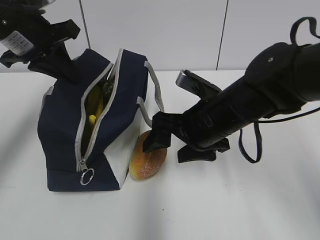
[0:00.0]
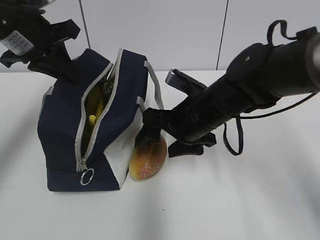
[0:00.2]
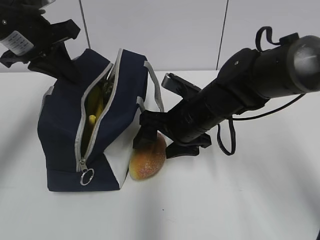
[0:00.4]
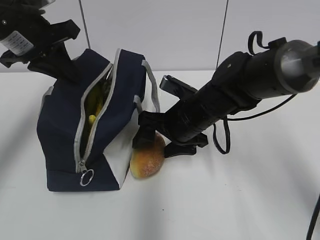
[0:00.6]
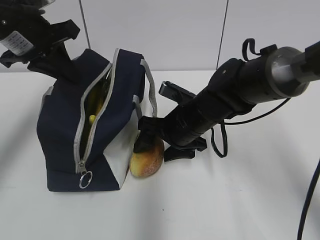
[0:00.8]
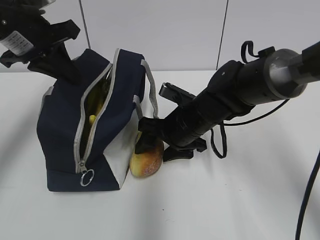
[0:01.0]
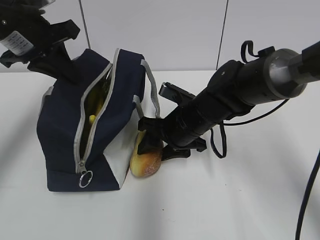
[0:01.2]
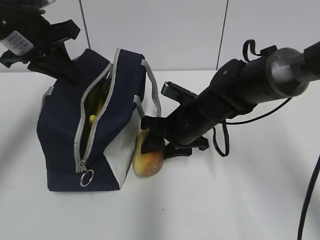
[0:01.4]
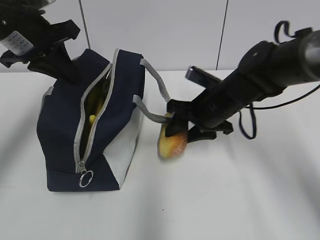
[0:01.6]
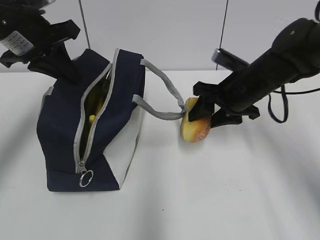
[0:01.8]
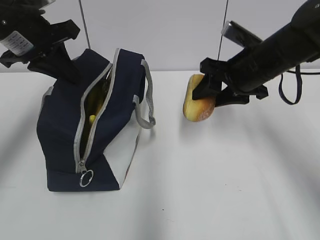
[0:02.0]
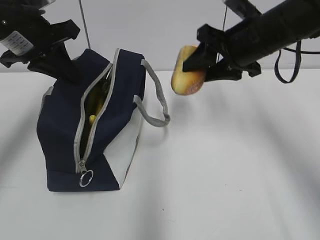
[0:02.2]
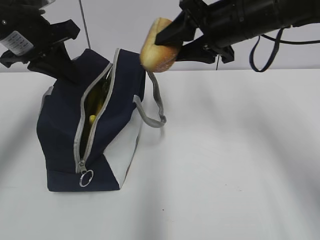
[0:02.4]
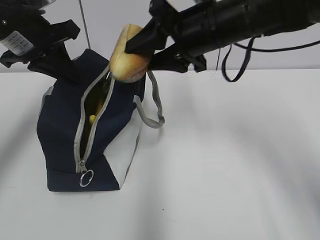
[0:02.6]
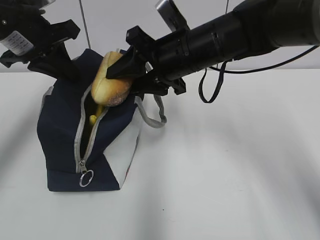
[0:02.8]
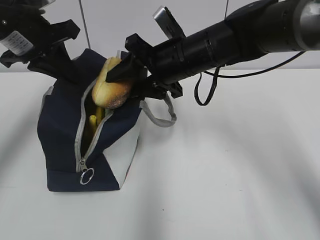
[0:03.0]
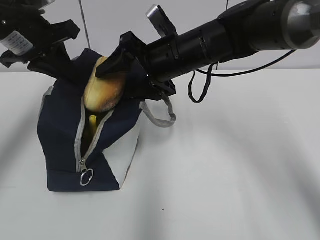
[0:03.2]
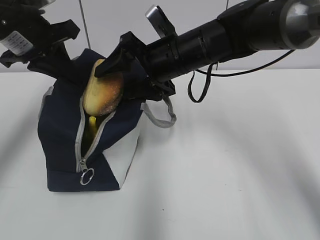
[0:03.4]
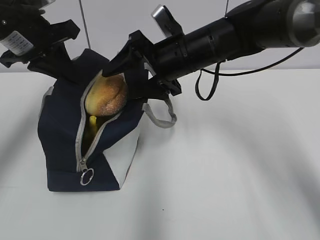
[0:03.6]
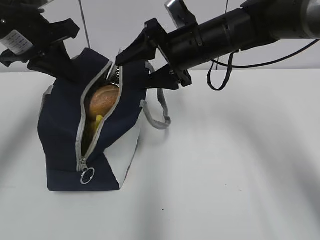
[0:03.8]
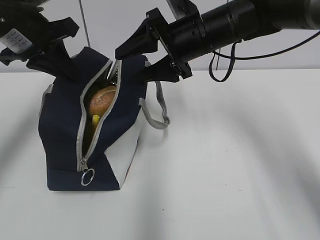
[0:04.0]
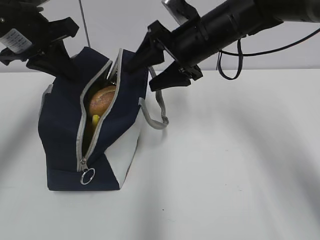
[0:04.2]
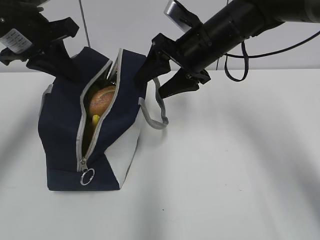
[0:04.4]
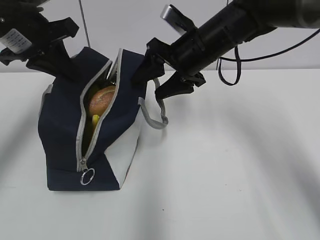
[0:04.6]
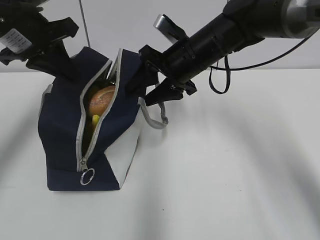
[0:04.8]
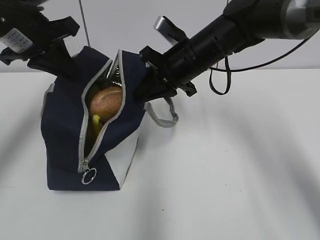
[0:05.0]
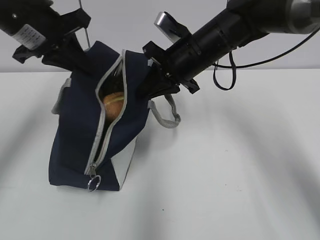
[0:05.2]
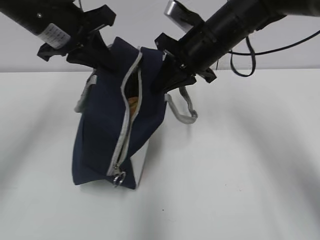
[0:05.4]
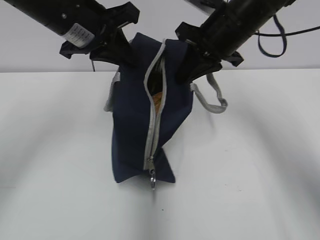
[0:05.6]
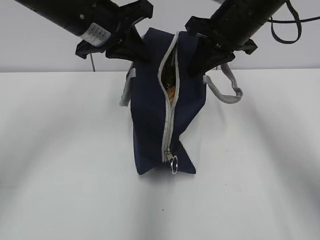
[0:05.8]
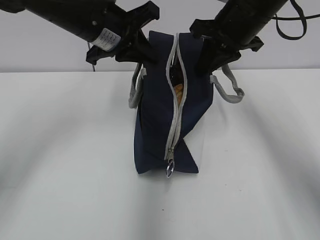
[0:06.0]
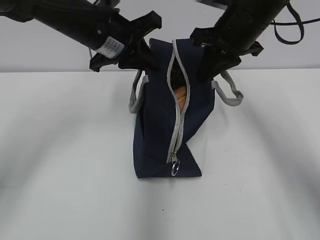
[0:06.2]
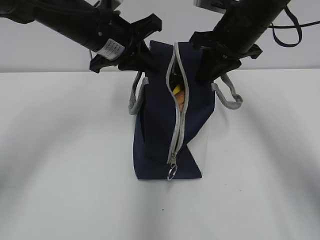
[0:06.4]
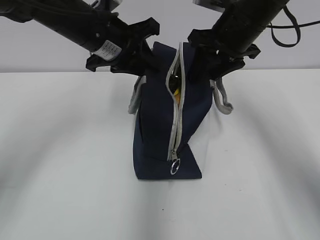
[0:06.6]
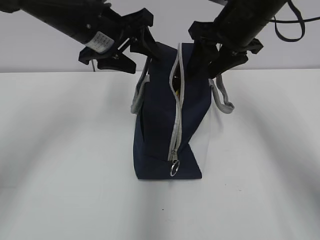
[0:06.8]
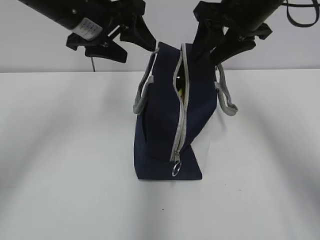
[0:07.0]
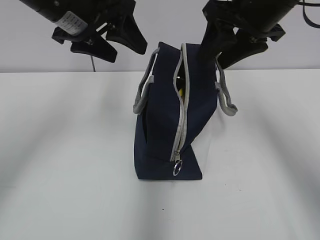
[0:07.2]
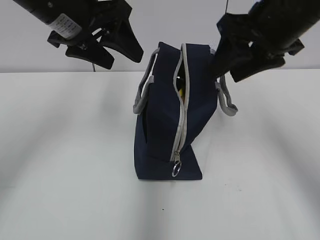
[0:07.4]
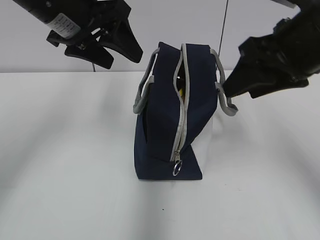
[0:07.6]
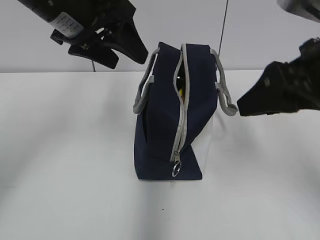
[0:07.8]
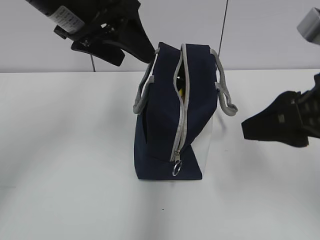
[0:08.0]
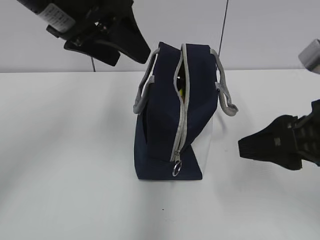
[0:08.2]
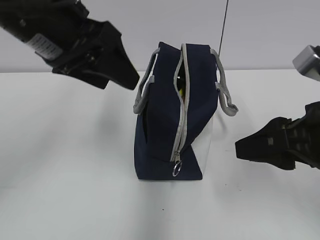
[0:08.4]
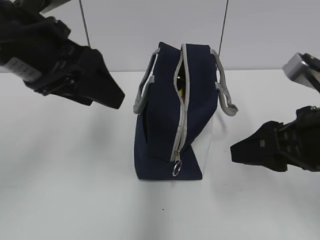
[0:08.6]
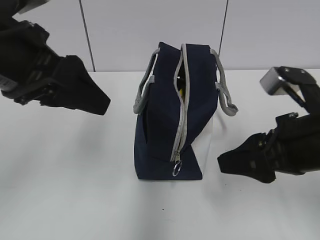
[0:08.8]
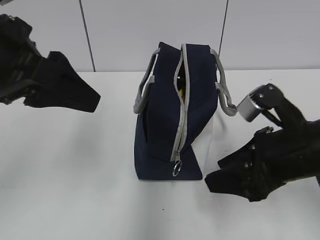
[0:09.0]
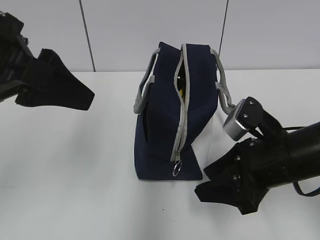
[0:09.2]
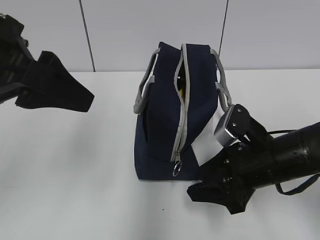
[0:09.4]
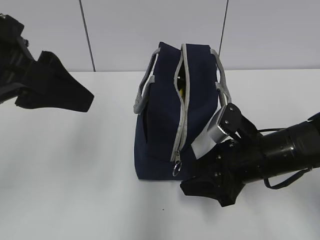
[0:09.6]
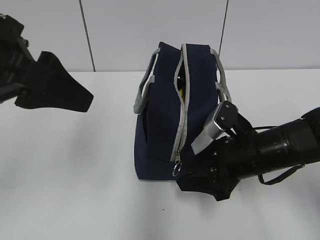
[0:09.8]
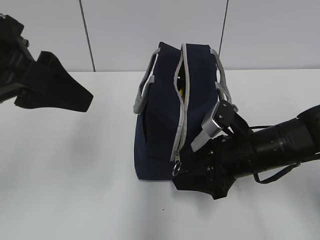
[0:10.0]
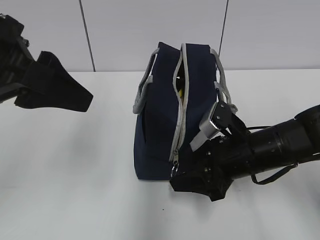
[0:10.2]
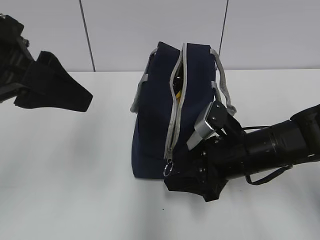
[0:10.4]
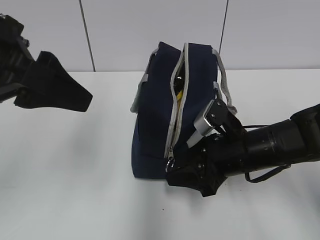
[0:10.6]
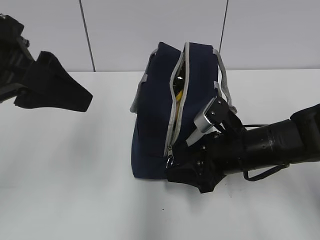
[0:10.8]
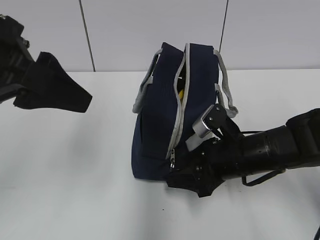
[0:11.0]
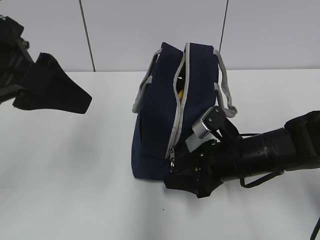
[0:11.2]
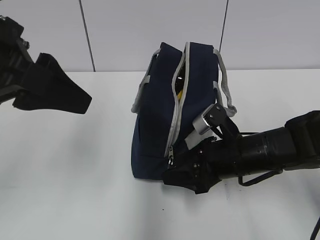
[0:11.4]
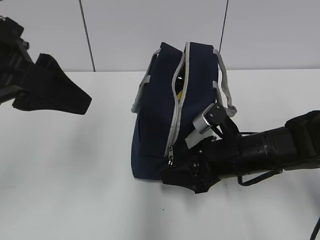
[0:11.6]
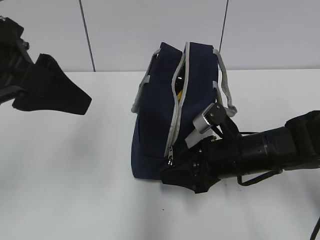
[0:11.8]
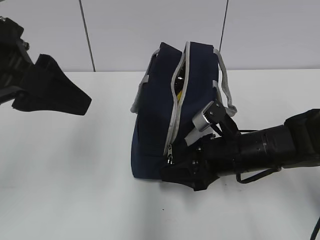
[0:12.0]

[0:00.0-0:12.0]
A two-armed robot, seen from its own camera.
Step, 0:03.8 to 0:05.0: Grab the lunch bag with your right hand.
Step, 0:05.2 to 0:06.8: Move the lunch bag to the right.
0:00.0 to 0:01.6: The right gripper moves forward, about 5 cm, and closes up.
0:01.6 to 0:03.0: The right gripper travels upward and to the left by approximately 10 cm.
0:03.0 to 0:04.4: The right gripper shifts by approximately 5 cm.
0:04.4 to 0:06.0: The right gripper shifts some 5 cm upward and to the right, and closes its fingers. The left gripper is displaced to the right by about 10 cm.
0:06.0 to 0:07.6: The right gripper moves backward, approximately 10 cm, and opens. The left gripper ends up some 5 cm from where it was, and opens up.
0:07.6 to 0:09.0: The left gripper shifts roughly 10 cm backward. The right gripper shifts approximately 10 cm downward.
0:09.0 to 0:10.4: The right gripper moves downward and forward, some 10 cm.
0:10.4 to 0:12.0: The grippers make only small movements.

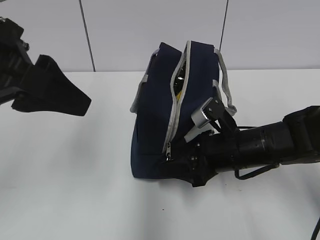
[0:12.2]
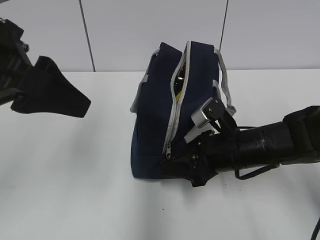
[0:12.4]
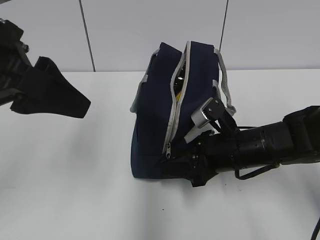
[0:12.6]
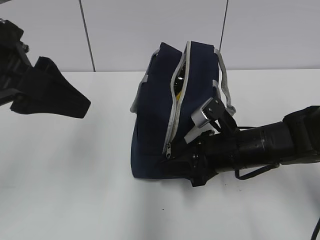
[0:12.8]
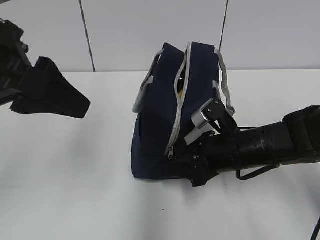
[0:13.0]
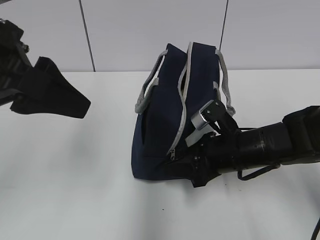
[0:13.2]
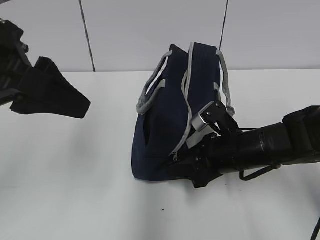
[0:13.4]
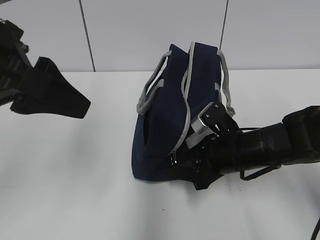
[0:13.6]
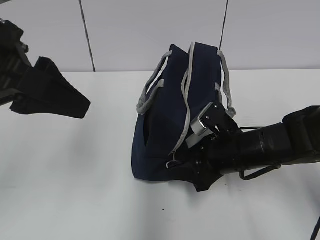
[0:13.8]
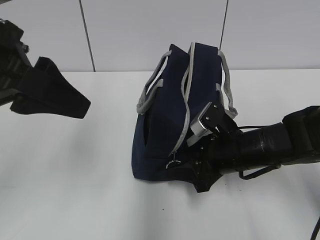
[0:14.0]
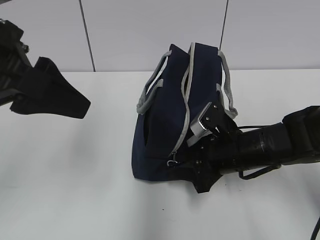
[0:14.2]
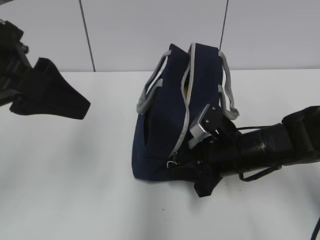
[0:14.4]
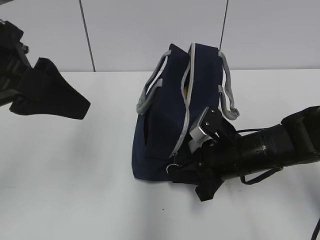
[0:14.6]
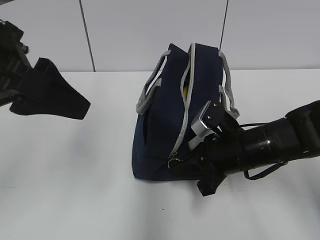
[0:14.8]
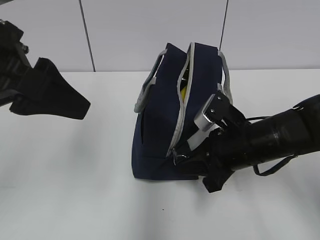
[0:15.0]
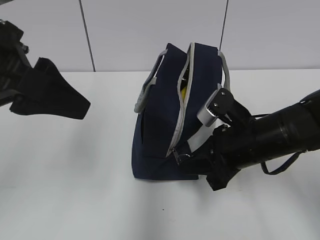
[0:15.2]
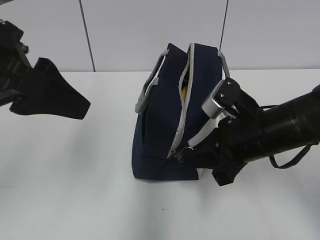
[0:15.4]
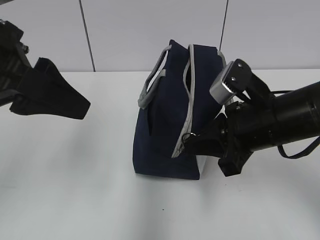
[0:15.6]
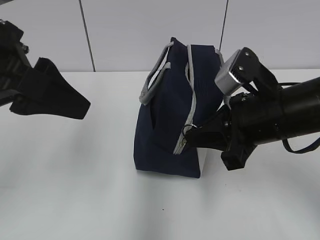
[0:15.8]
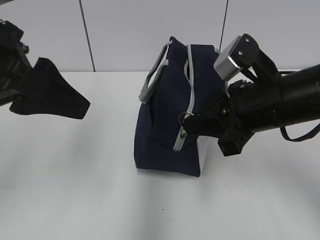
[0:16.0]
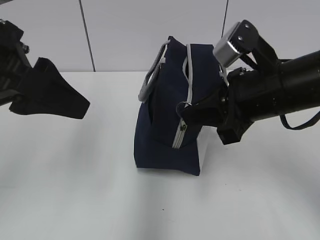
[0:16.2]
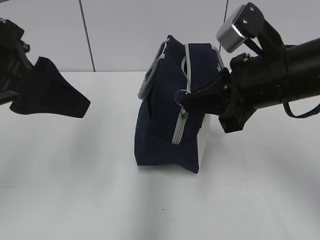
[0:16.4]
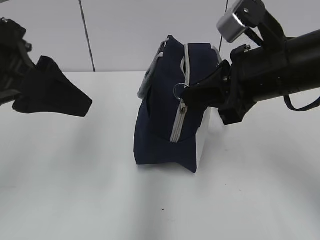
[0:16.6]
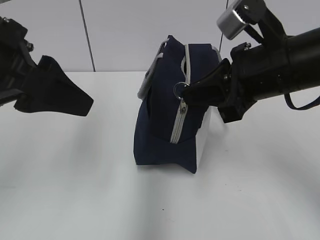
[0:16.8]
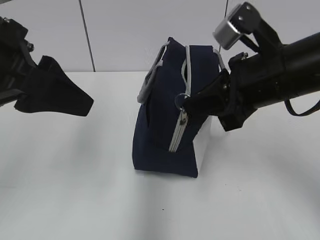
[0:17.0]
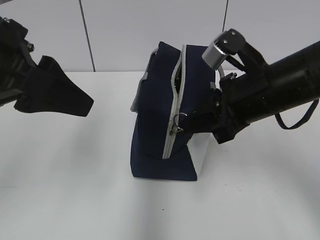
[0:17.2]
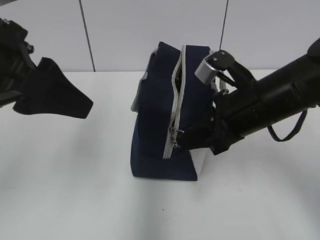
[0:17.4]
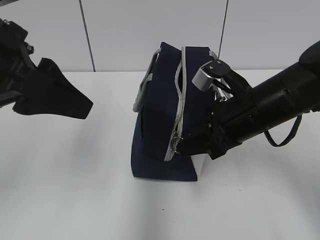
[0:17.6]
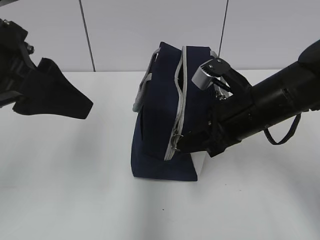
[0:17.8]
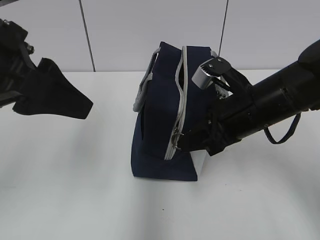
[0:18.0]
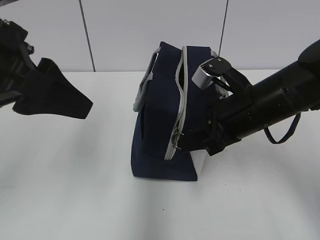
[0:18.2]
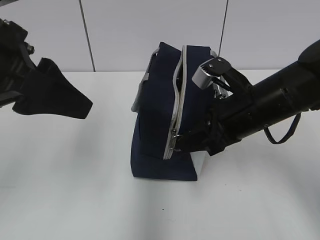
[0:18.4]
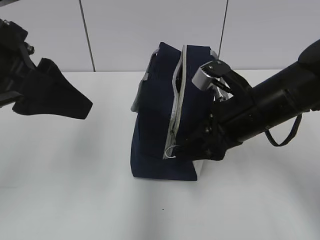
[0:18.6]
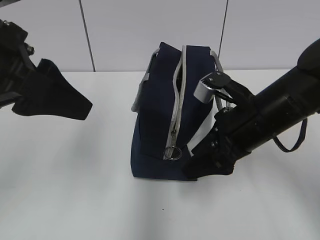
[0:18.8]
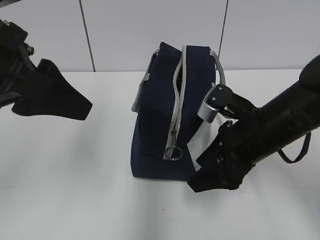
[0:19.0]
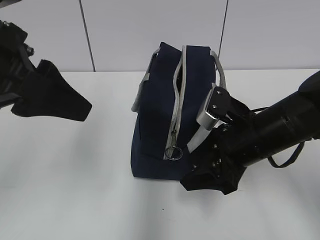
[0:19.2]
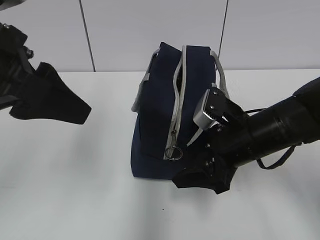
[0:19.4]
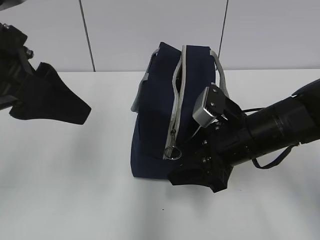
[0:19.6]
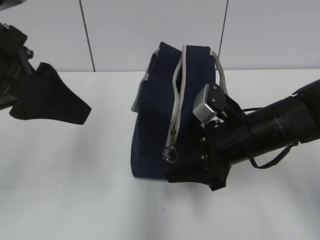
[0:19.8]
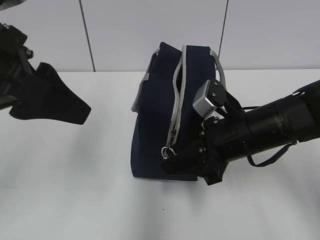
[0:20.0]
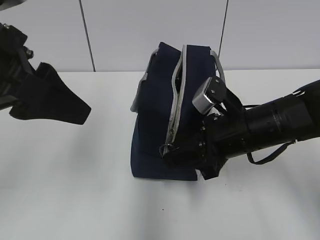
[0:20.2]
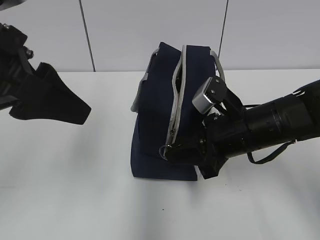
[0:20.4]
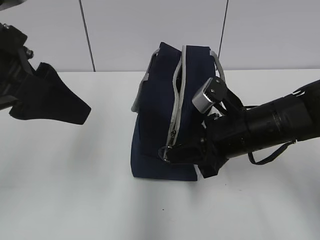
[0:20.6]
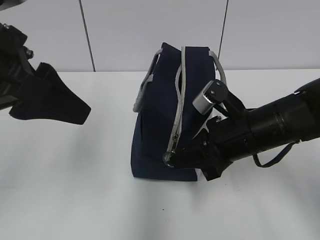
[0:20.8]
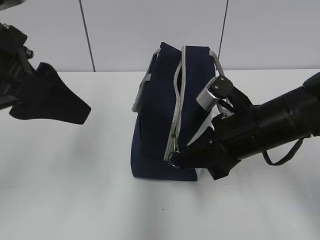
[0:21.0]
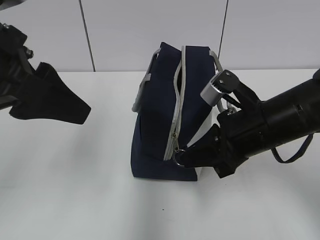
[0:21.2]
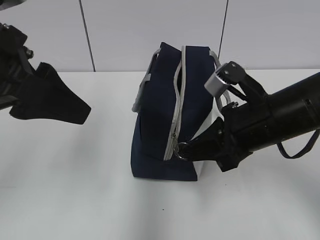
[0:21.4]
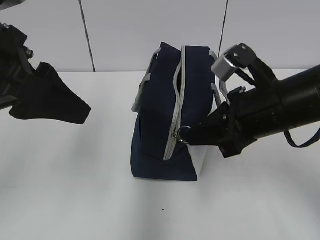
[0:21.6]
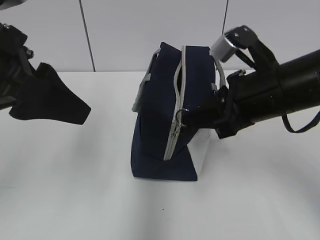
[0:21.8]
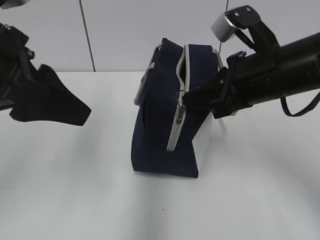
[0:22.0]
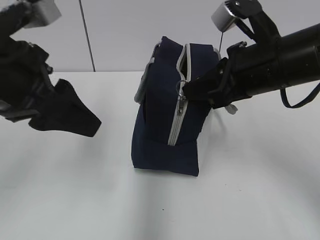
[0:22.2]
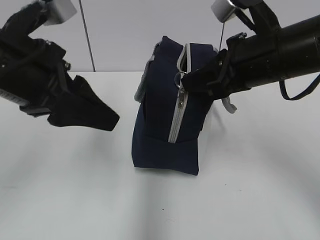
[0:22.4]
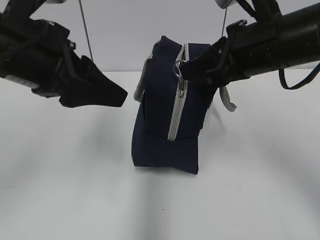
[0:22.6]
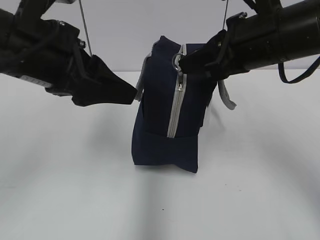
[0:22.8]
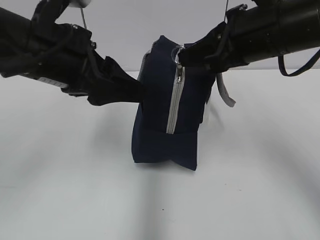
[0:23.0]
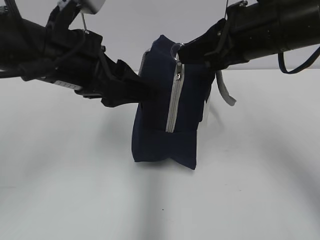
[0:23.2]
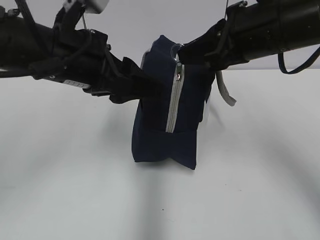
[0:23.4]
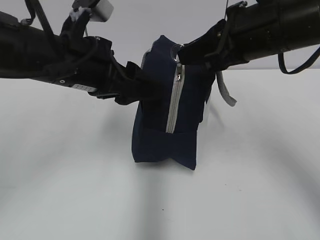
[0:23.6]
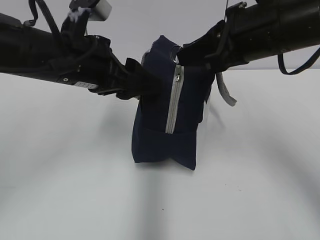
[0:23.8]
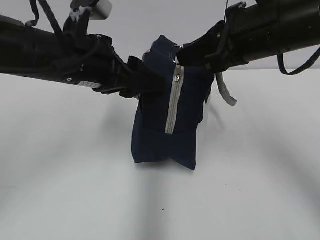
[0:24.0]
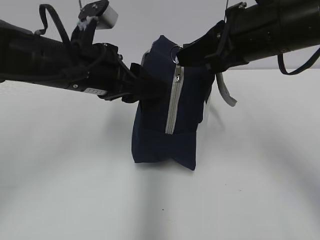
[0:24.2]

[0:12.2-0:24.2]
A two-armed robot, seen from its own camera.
0:12.2 to 0:13.8: There are only small adjustments of the grippers.
0:13.8 to 0:15.2: The right gripper shifts by roughly 5 cm, and closes.
0:15.2 to 0:16.6: The right gripper is displaced upward by approximately 10 cm.
0:16.6 to 0:18.2: The right gripper shifts about 5 cm downward.
0:18.2 to 0:19.8: The right gripper opens up.
0:19.8 to 0:21.2: The right gripper closes its fingers.
0:21.2 to 0:22.6: The right gripper moves upward, approximately 10 cm.
0:22.6 to 0:24.2: The left gripper moves downward and forward, approximately 10 cm.
